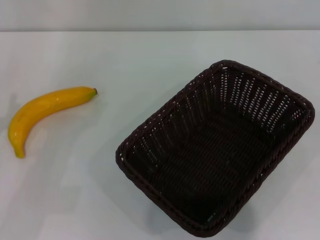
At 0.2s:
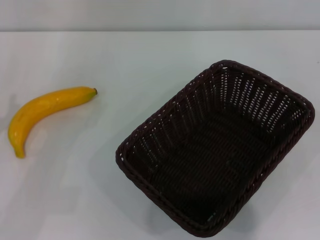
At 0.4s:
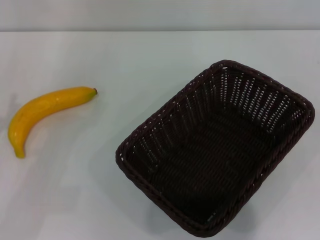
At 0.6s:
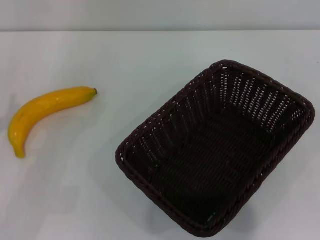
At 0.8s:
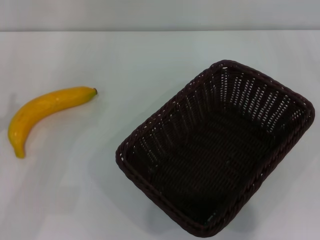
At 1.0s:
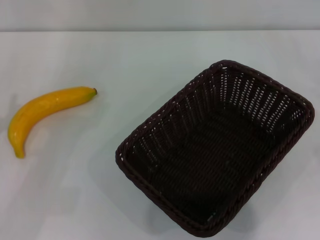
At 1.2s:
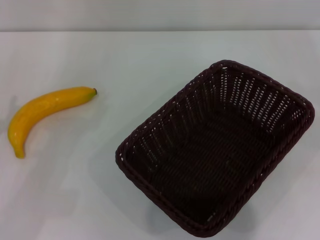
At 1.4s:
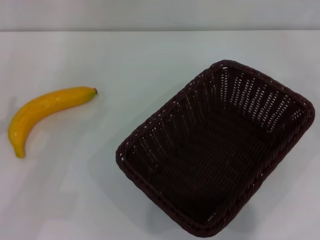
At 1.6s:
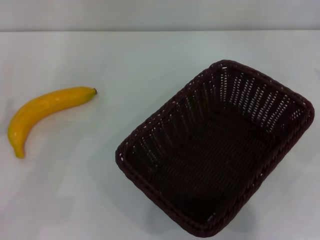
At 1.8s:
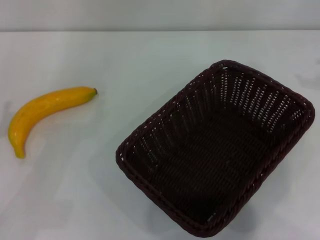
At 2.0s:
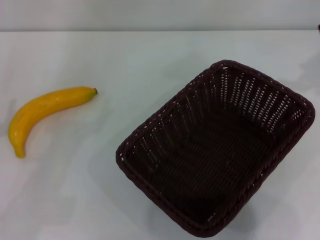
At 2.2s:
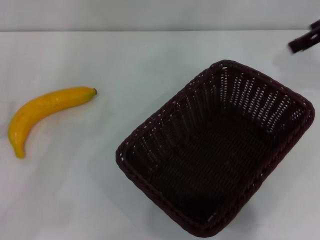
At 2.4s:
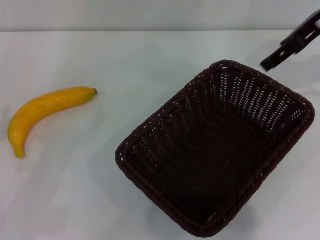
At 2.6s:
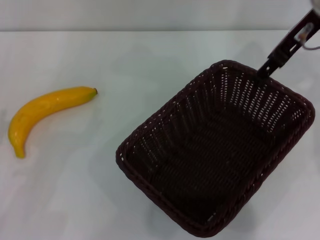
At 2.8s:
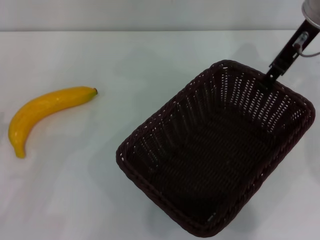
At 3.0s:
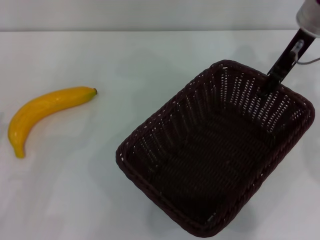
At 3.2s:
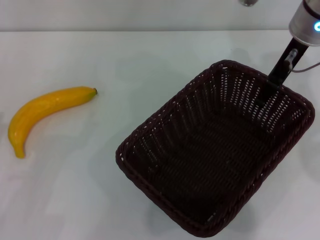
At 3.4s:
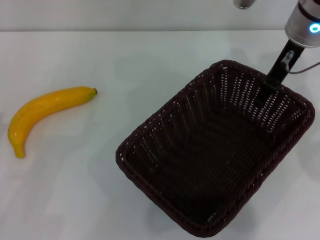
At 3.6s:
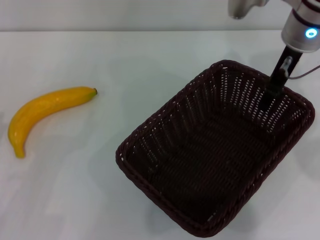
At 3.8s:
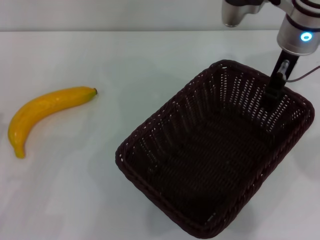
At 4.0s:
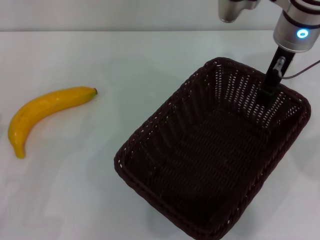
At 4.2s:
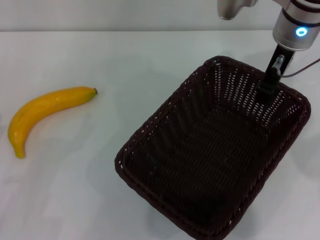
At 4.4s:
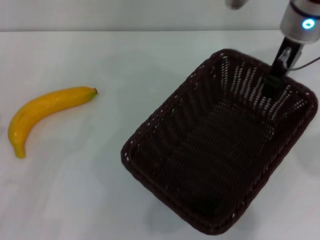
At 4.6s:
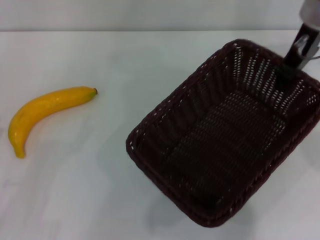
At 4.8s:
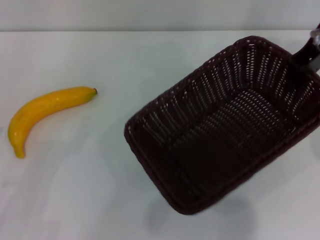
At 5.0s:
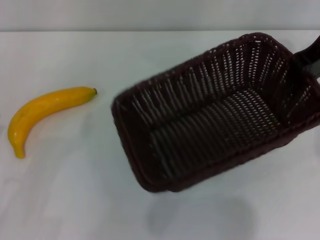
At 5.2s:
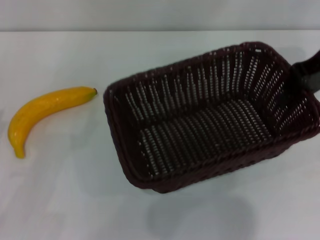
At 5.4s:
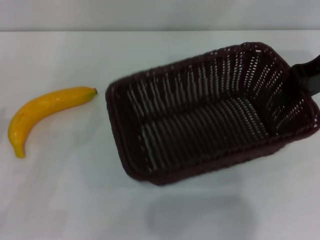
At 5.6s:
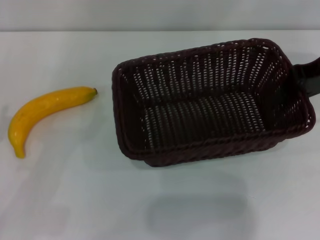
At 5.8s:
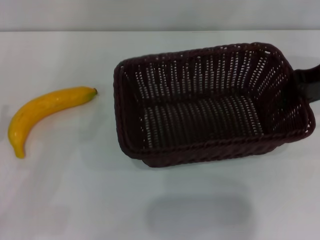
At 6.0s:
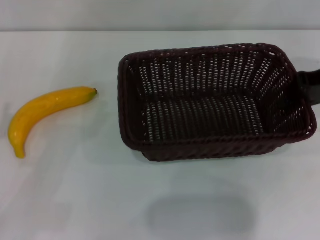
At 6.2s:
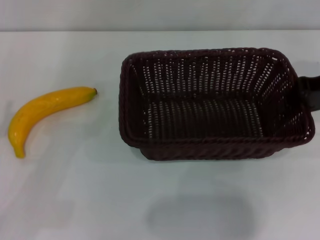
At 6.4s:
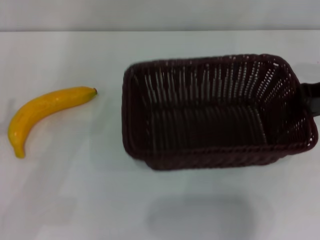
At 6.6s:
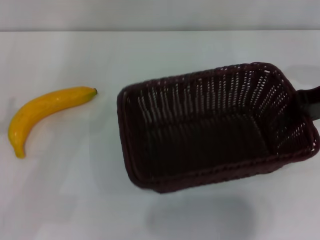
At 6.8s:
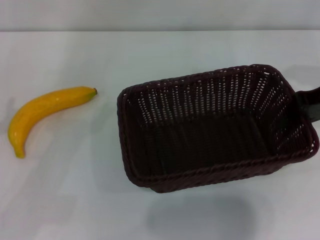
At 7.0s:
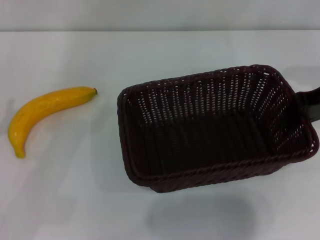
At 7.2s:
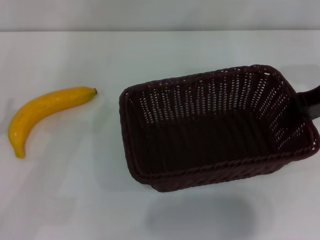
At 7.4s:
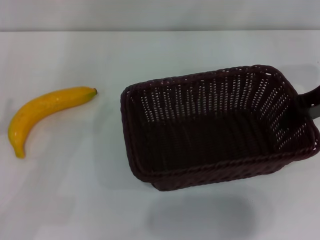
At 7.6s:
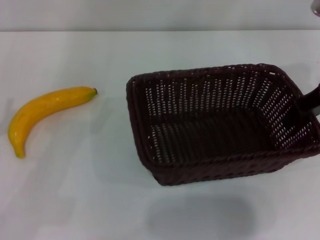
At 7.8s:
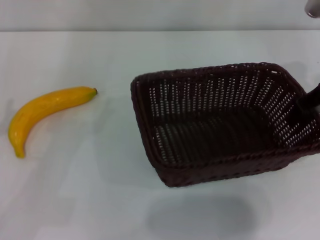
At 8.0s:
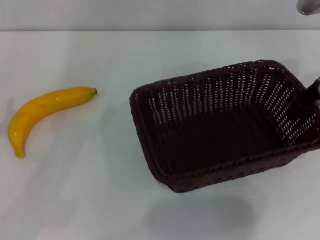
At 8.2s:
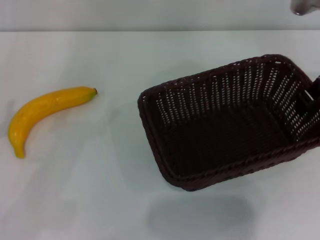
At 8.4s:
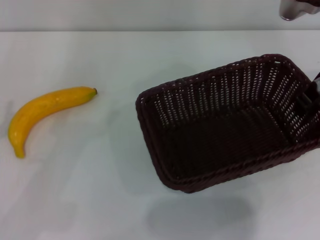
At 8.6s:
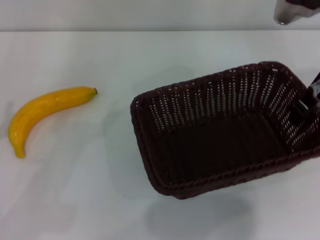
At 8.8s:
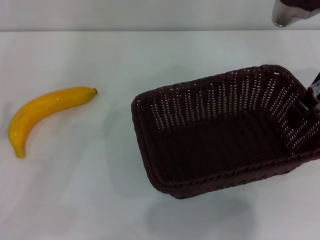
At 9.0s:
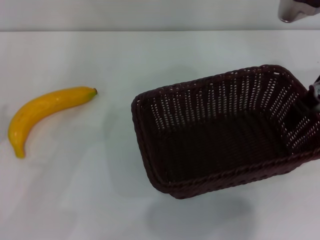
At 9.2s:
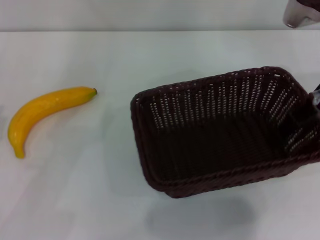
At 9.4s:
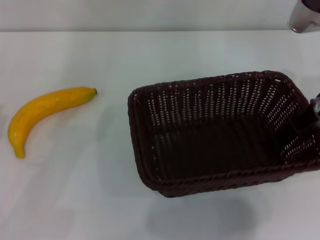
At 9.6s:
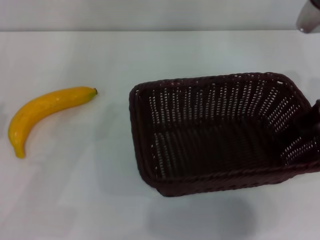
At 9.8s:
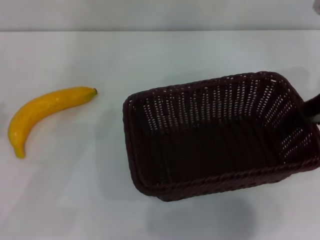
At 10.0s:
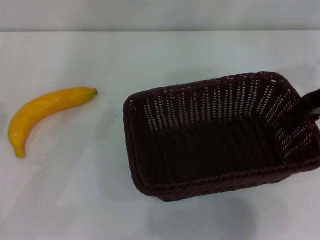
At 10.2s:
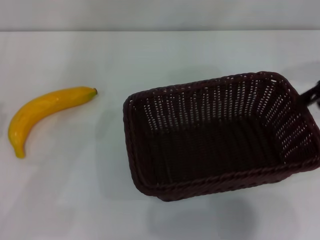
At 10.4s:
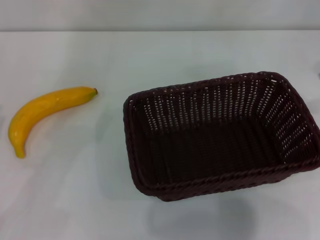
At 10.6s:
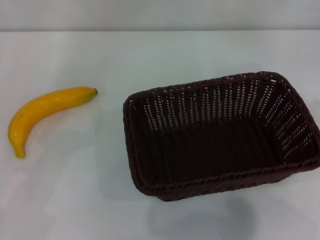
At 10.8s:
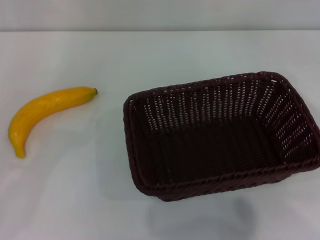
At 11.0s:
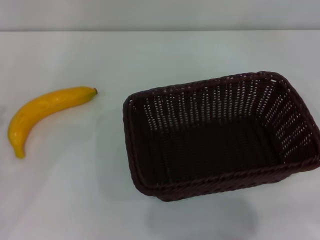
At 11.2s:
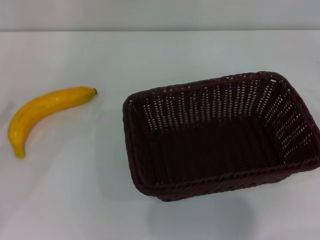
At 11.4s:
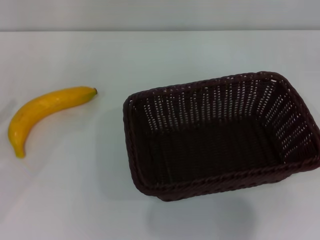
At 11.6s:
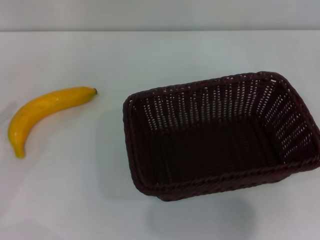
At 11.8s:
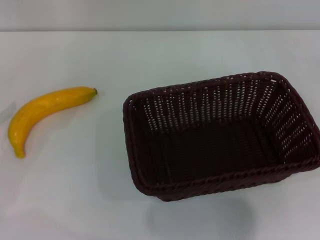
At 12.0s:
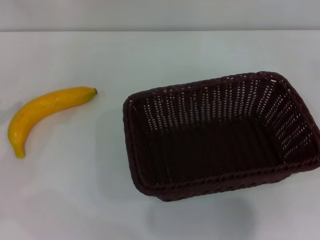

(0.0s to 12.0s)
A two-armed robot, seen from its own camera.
Step, 0.0s - 4.8s: Pick up the dark basket with the right gripper.
Step, 5.0s - 10.2s: Place the dark basket in the center of view with the right gripper.
1.6s - 3.0s: The right gripper travels to the left and forward by some 25 cm.
3.0s - 4.4s: The right gripper closes up.
4.4s - 6.0s: The right gripper shifts roughly 10 cm to the right.
7.6s - 9.0s: The left gripper closes its fingers. The right gripper opens.
9.0s - 10.4s: The right gripper is displaced to the right and upward by approximately 15 cm, and opens.

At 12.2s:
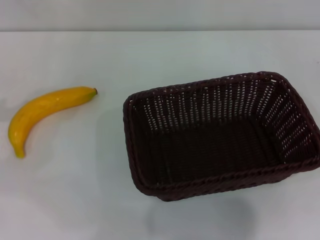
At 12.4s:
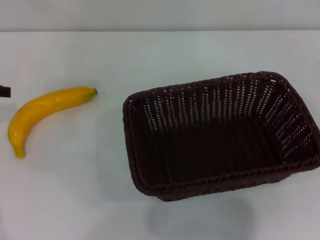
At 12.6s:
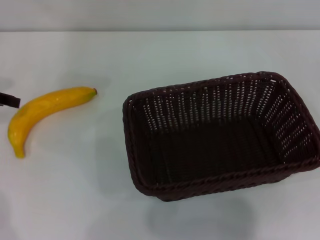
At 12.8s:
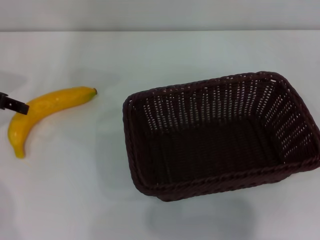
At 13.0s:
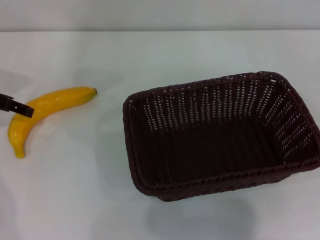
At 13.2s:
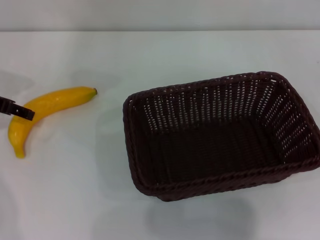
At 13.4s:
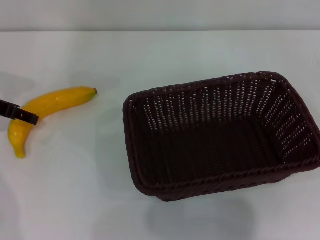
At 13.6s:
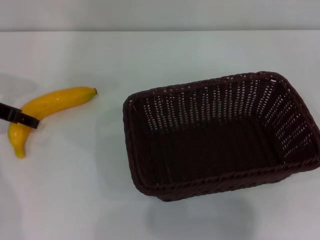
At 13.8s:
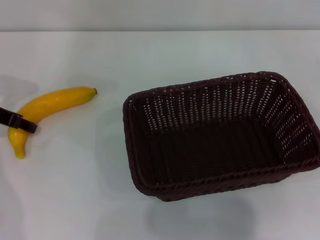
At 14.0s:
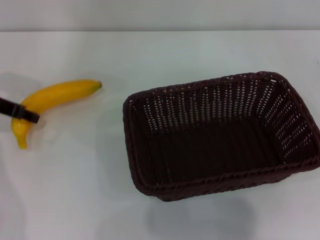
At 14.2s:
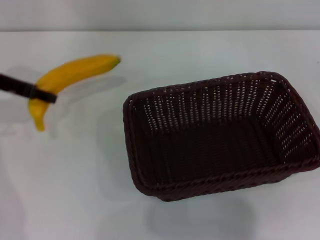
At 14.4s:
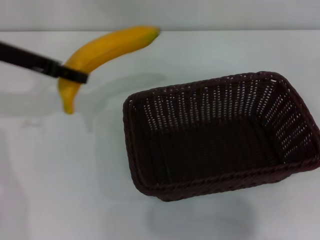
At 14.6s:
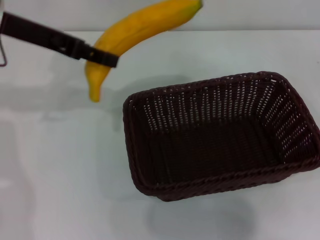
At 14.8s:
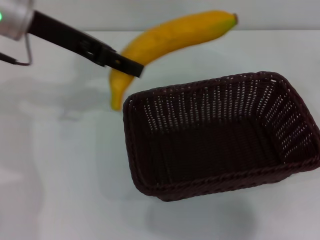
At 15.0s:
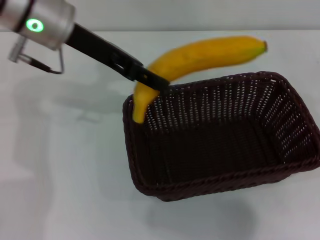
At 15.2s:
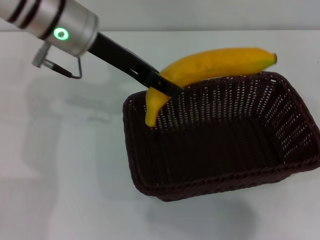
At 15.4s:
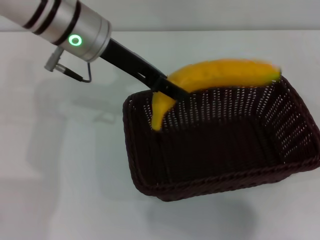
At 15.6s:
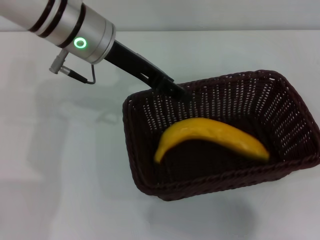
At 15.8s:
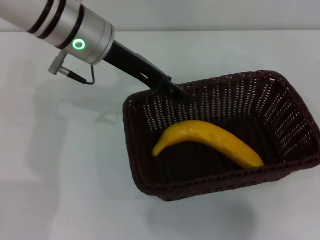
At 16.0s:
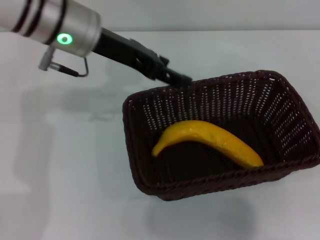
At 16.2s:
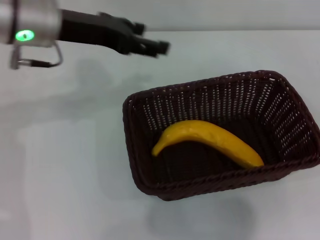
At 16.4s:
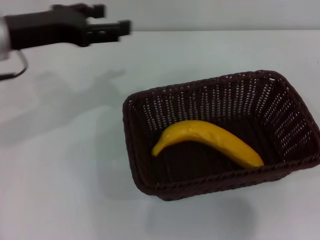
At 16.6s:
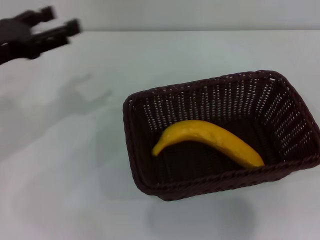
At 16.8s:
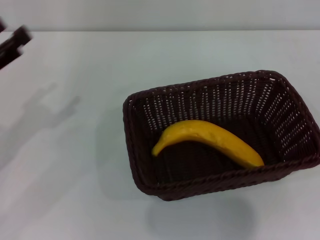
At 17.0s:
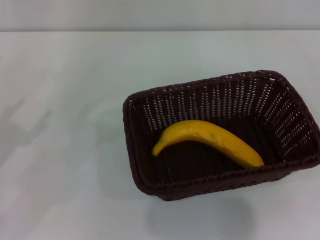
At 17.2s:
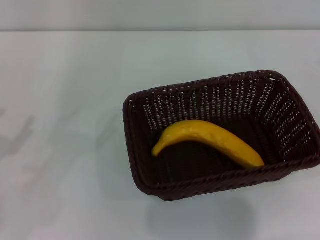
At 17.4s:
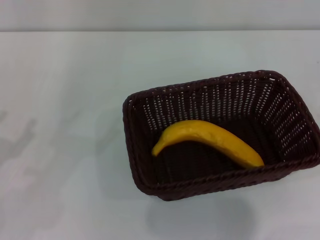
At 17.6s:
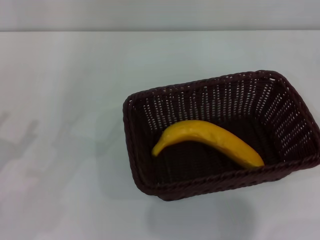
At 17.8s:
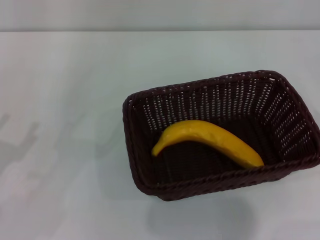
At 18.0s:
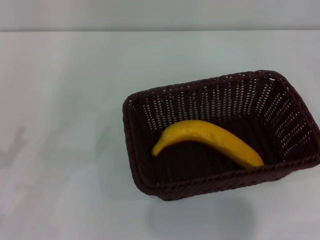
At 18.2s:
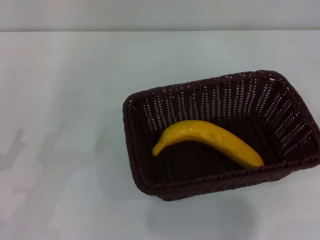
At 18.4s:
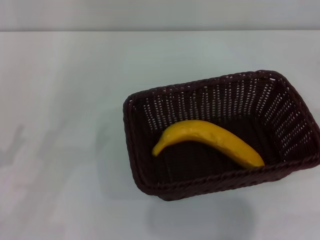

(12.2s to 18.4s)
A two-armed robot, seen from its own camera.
Step, 12.2s - 14.2s: Pick up the banana with the left gripper.
Step, 14.4s - 16.0s: Place the banana into the dark basket with the left gripper.
12.2s - 13.8s: The left gripper is displaced to the right by about 10 cm, and closes, then opens again.
13.8s - 15.4s: The left gripper is displaced to the right and upward by some 20 cm, and closes.
15.4s - 16.8s: The left gripper heads to the left, backward and downward, covering roughly 25 cm, and opens its fingers.
16.8s - 18.4s: The left gripper shifts approximately 15 cm backward and downward.

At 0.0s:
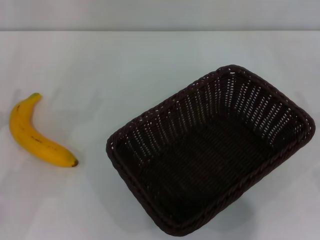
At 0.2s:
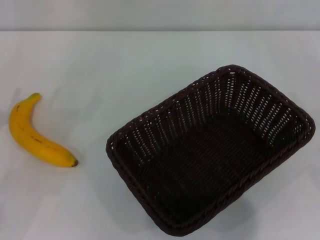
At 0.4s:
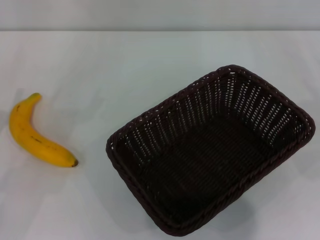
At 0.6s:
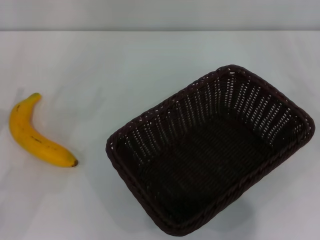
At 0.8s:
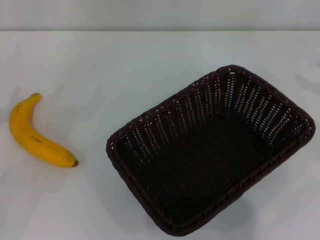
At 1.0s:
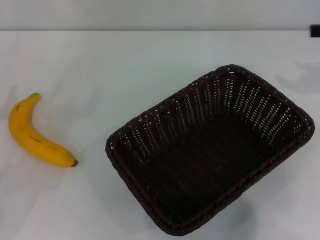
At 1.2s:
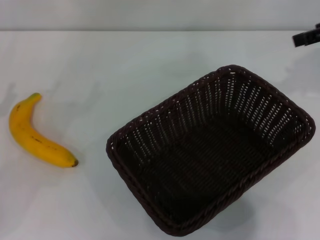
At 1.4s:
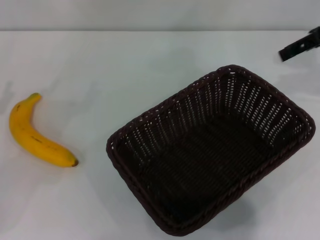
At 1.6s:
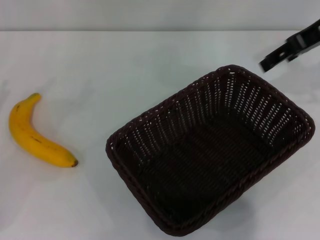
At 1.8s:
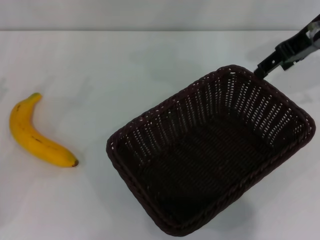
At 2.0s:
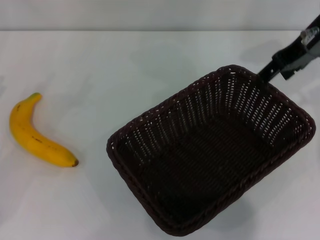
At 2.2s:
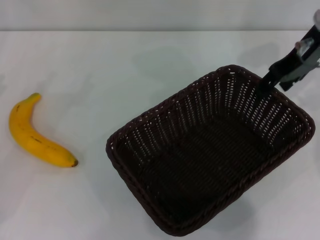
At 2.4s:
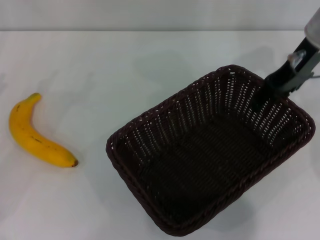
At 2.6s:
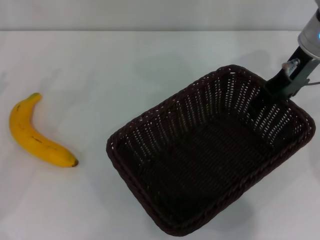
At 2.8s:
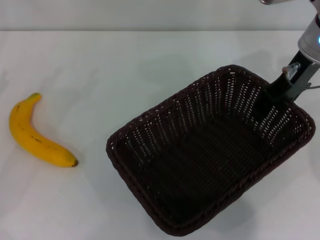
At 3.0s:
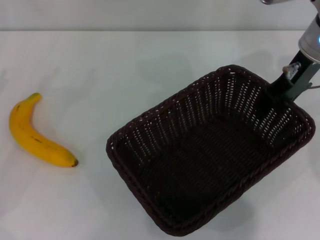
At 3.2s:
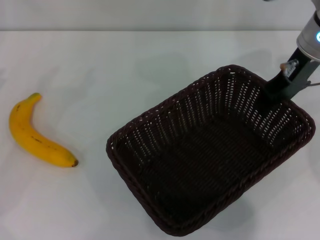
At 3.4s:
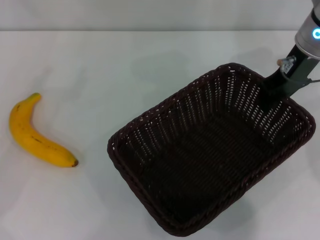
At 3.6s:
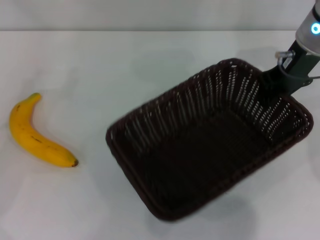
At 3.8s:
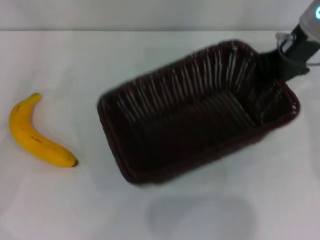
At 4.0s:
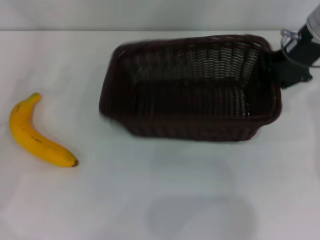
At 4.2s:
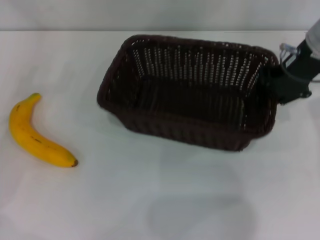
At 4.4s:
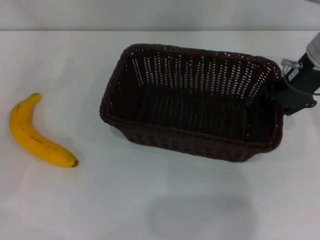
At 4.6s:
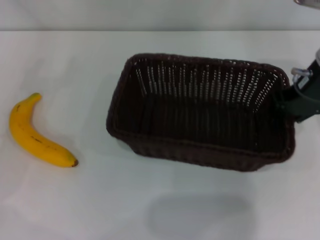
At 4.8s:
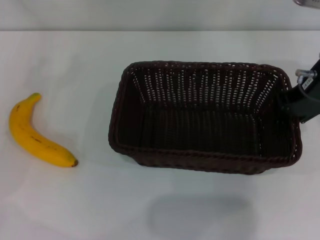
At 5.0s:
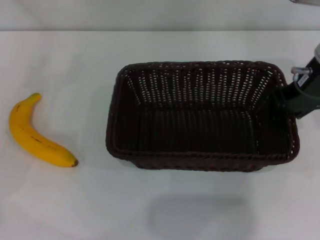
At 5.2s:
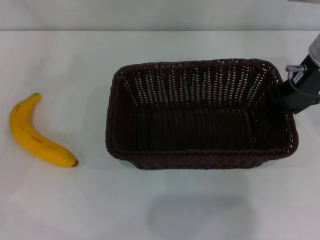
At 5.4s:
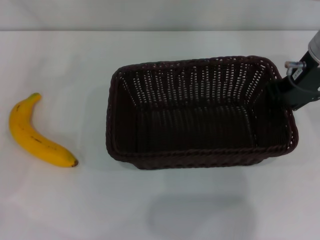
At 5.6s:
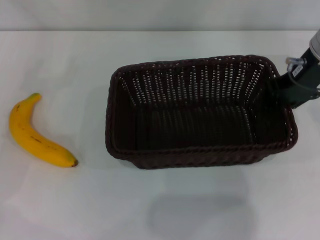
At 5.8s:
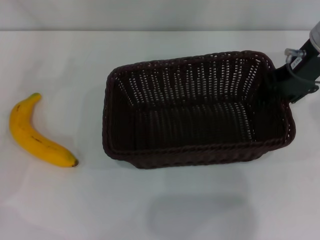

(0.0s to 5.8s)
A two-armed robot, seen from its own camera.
Step, 0.0s - 3.4s: Pick up the dark basket with the right gripper.
0.0s - 1.4s: The right gripper moves upward, forward and to the left, roughly 30 cm.
1.4s - 2.8s: The right gripper shifts about 10 cm to the left and downward.
2.8s - 4.4s: The right gripper closes.
4.4s - 5.8s: There are only small adjustments of the grippers.
